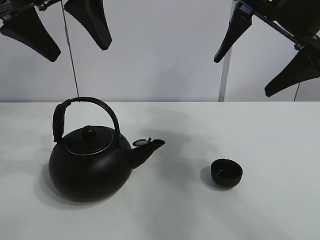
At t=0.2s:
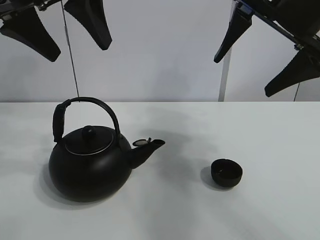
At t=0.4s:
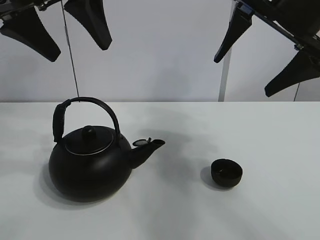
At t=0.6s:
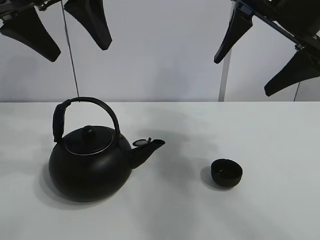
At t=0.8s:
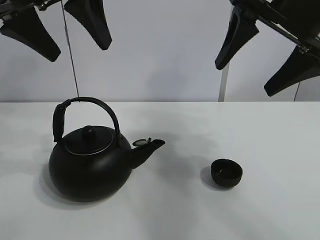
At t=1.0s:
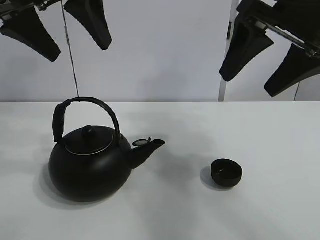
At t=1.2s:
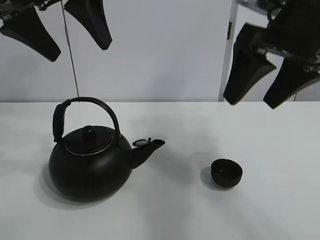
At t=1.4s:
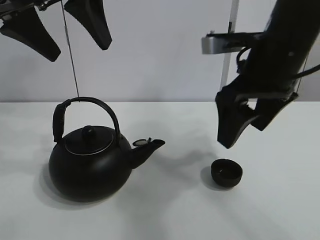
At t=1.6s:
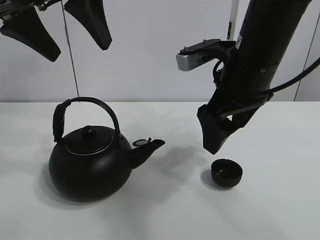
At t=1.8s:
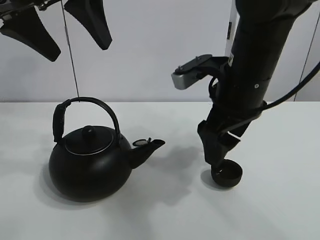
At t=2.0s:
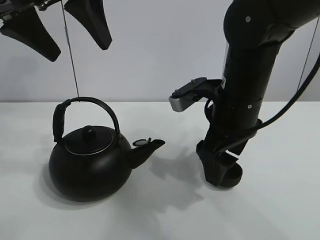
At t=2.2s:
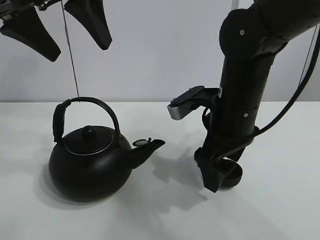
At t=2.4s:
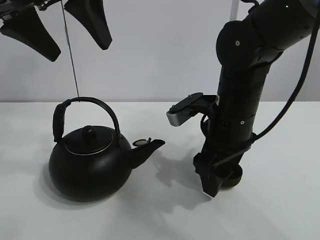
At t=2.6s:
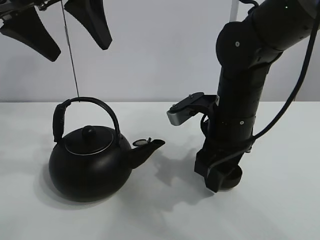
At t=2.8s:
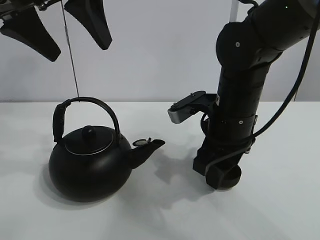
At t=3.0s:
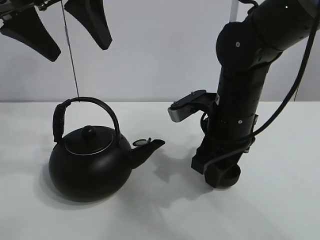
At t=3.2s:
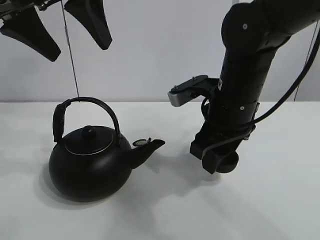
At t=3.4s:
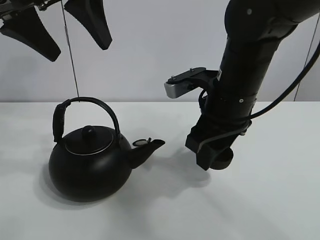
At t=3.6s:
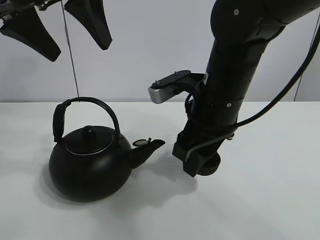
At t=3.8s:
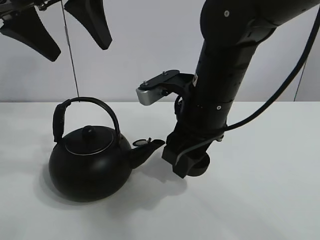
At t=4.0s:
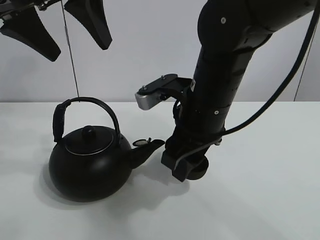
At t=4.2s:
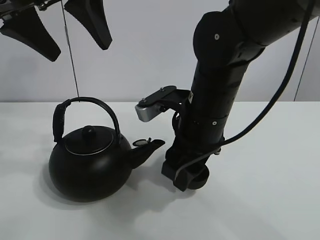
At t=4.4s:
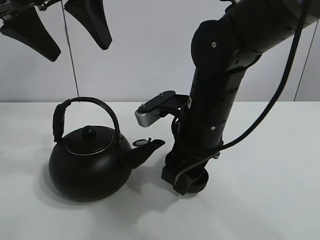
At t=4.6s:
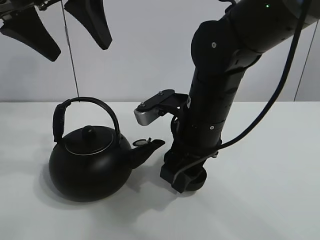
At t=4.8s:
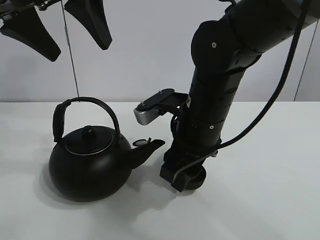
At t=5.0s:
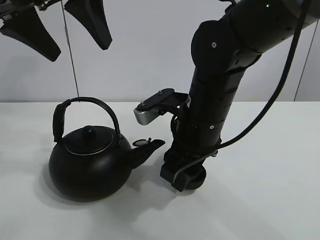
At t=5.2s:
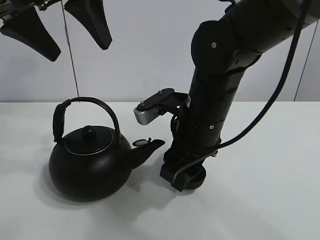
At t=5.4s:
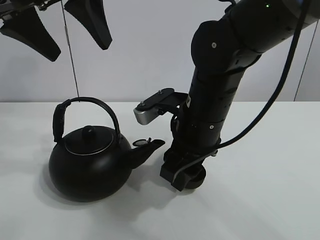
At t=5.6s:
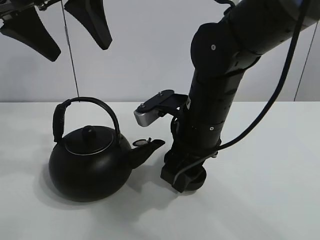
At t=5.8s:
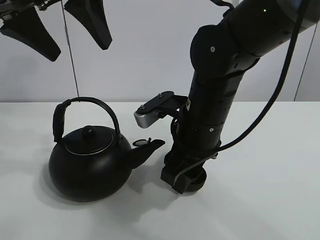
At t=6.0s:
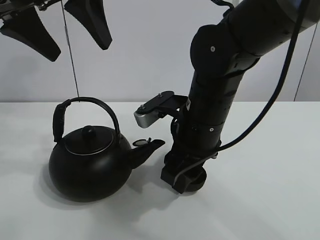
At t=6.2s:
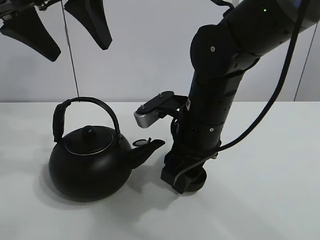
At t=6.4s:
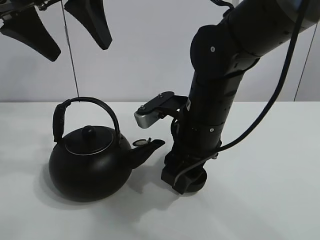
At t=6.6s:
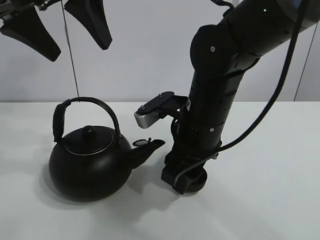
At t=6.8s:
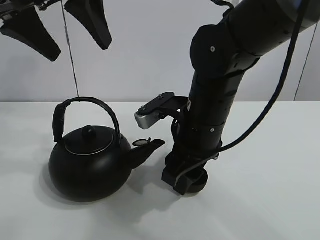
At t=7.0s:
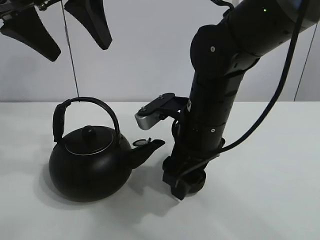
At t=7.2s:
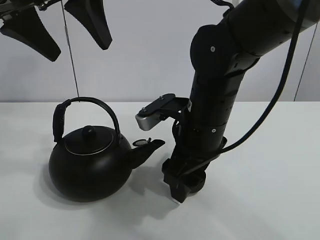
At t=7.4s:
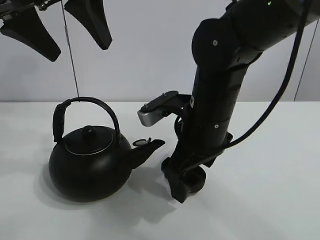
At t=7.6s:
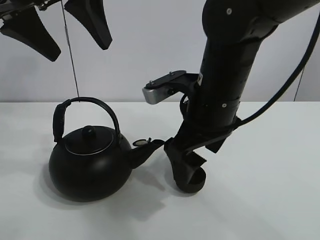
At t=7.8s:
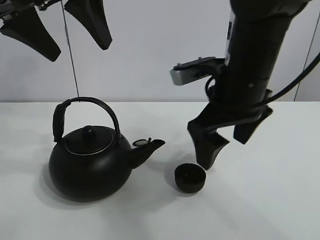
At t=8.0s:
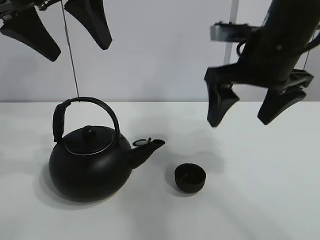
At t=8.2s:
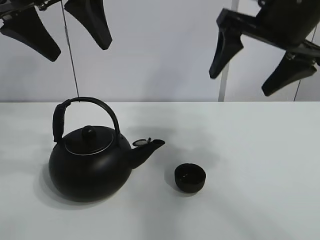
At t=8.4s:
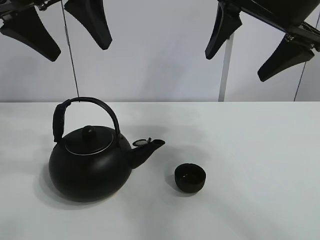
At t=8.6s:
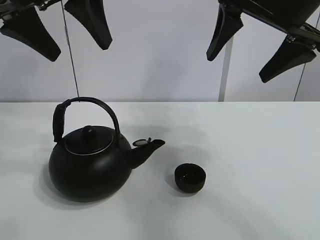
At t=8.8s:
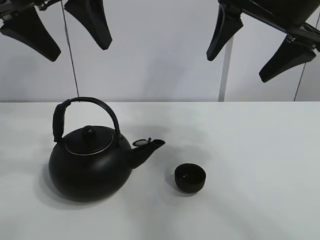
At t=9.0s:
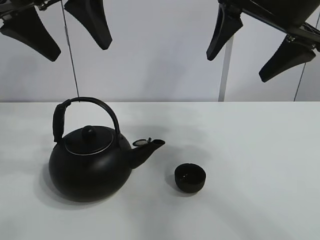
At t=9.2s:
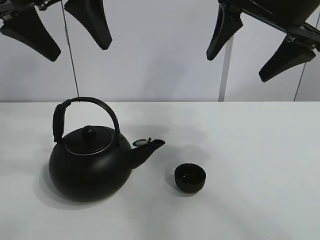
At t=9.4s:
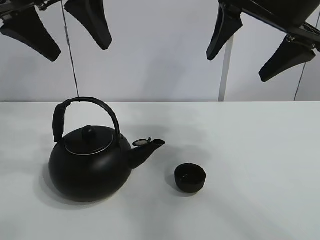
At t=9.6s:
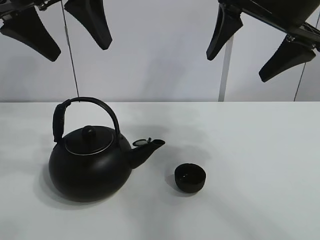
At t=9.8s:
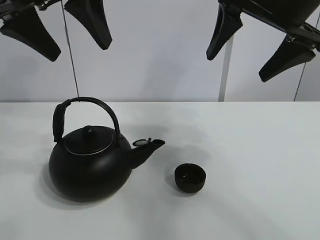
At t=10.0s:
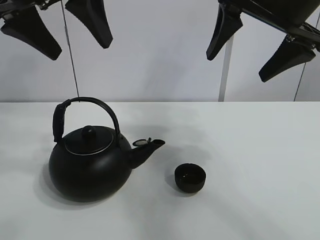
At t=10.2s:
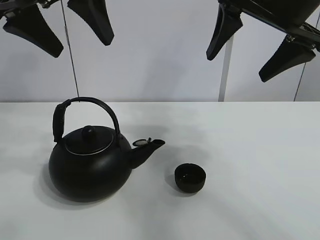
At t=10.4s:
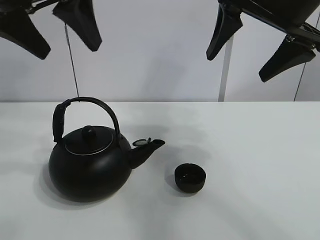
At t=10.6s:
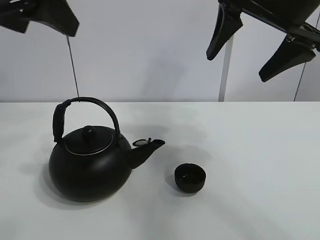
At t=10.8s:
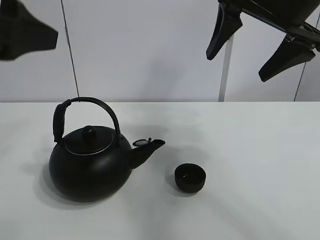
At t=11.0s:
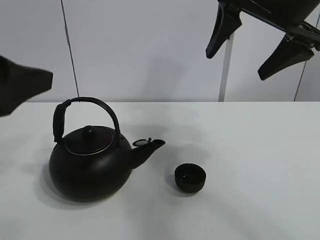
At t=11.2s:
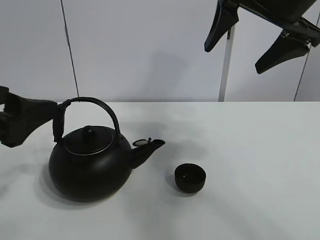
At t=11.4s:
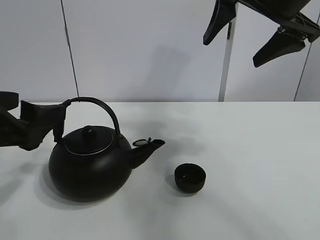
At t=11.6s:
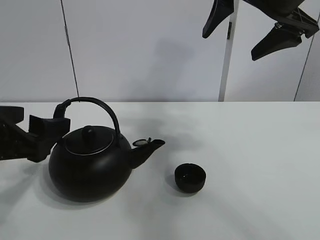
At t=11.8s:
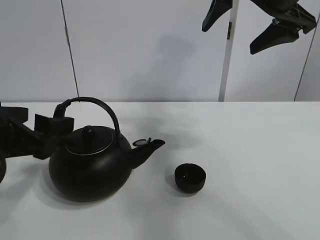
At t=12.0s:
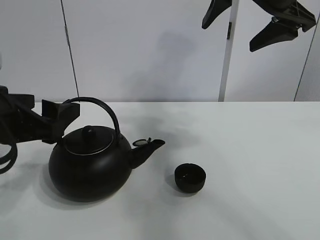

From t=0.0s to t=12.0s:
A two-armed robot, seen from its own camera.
Task of the whole recording: pour tea into the teacup.
Step, from t=0.0s to t=3.0s: Pick up the teacup with the right gripper.
Step, from t=3.2s to t=7.2s: Place the teacup in the center of view with the right gripper.
From t=1.6s to t=3.0s: The right gripper moves downward, approximately 10 cm, and closes.
From t=3.0s to t=4.4s: The right gripper changes place by some 5 cm.
From t=4.4s to t=6.0s: Neither gripper changes place.
From t=6.0s to t=7.6s: The right gripper opens its fingers.
From t=7.6s to t=9.0s: The right gripper goes approximately 15 cm upward and to the right.
From t=9.0s to t=10.4s: The grippers stay close to where they were, moving slightly.
From t=10.4s to t=12.0s: The left gripper heads downward, covering some 20 cm.

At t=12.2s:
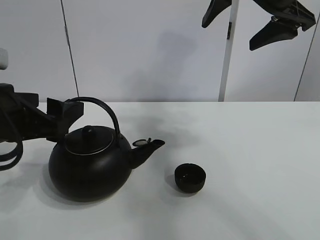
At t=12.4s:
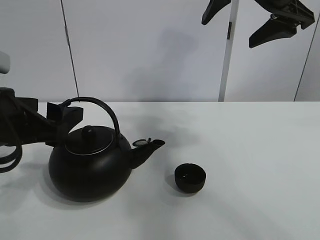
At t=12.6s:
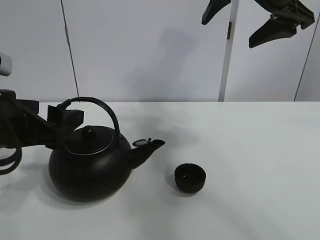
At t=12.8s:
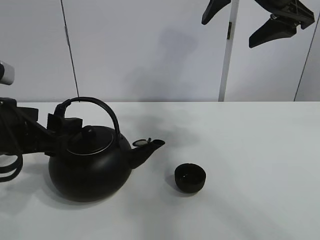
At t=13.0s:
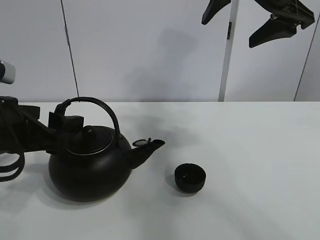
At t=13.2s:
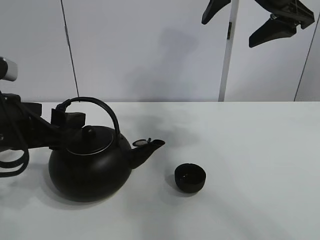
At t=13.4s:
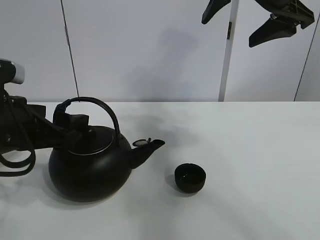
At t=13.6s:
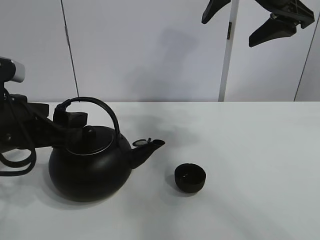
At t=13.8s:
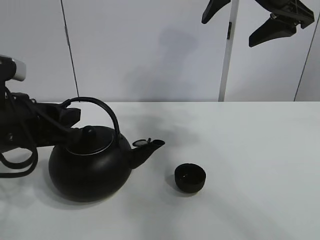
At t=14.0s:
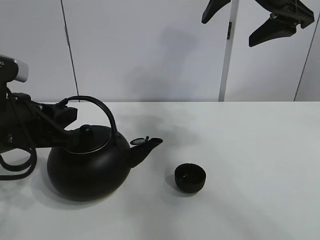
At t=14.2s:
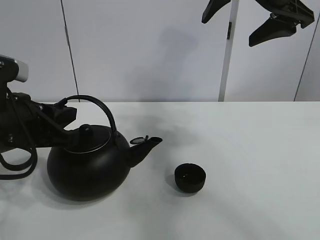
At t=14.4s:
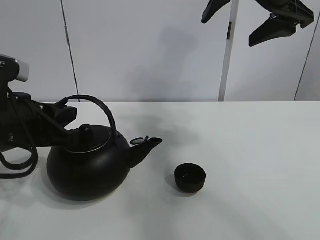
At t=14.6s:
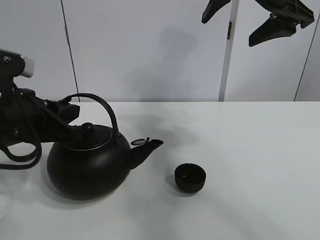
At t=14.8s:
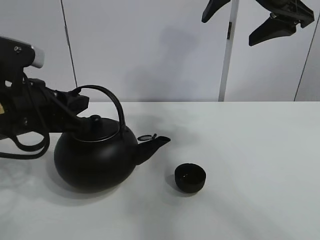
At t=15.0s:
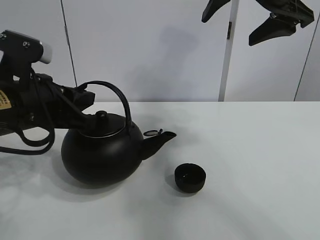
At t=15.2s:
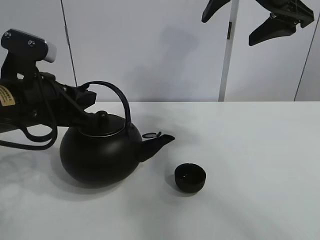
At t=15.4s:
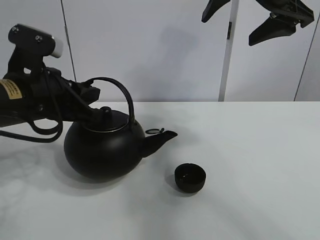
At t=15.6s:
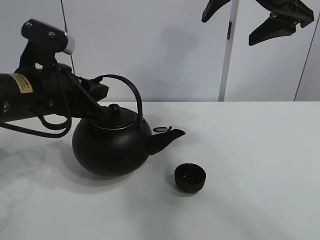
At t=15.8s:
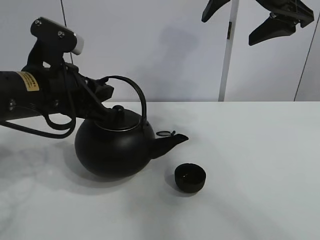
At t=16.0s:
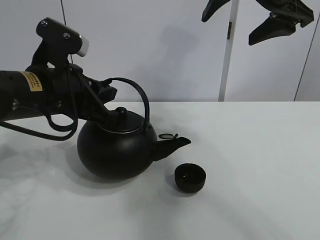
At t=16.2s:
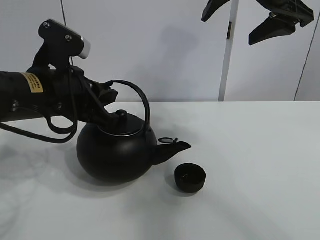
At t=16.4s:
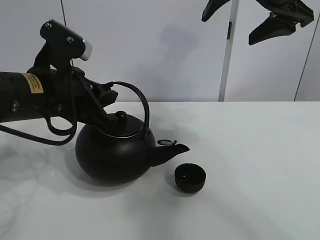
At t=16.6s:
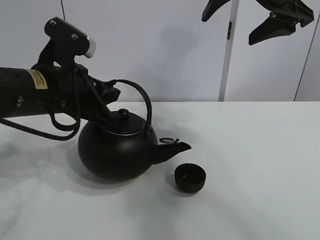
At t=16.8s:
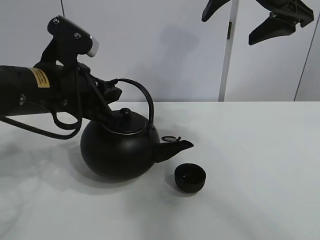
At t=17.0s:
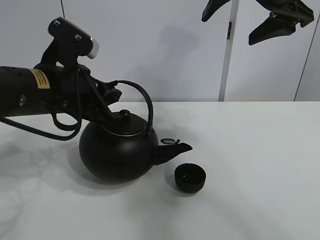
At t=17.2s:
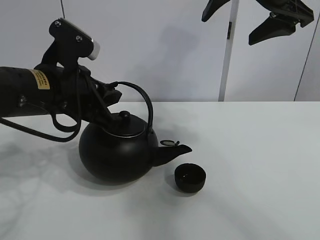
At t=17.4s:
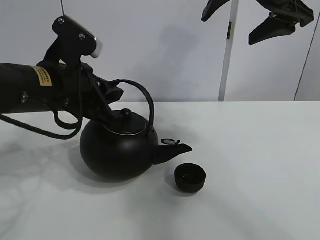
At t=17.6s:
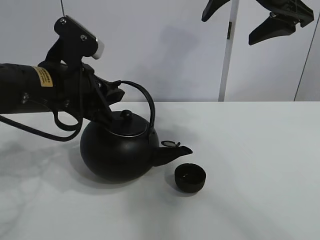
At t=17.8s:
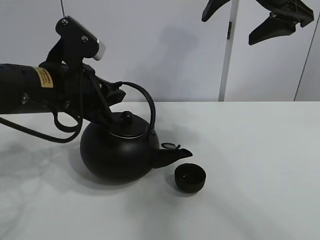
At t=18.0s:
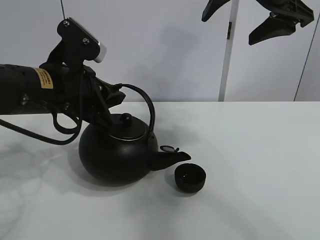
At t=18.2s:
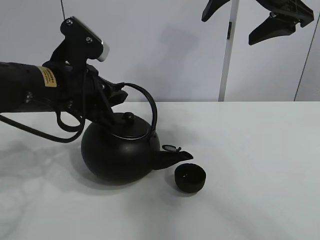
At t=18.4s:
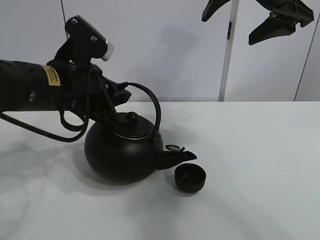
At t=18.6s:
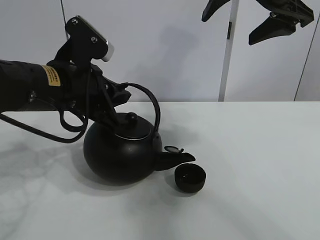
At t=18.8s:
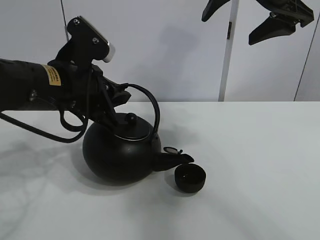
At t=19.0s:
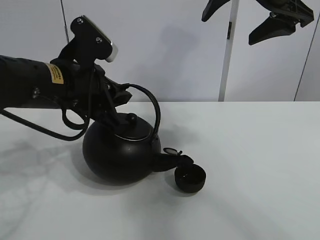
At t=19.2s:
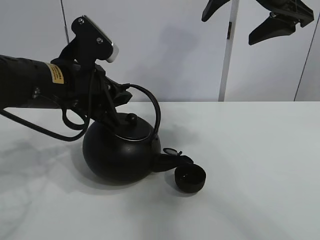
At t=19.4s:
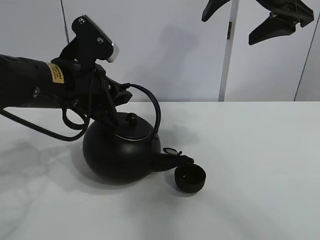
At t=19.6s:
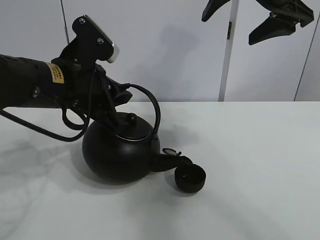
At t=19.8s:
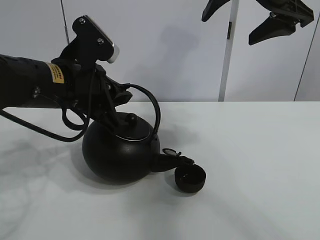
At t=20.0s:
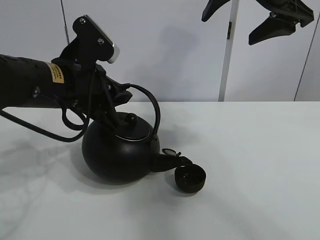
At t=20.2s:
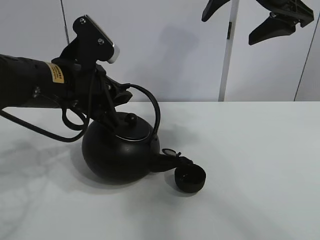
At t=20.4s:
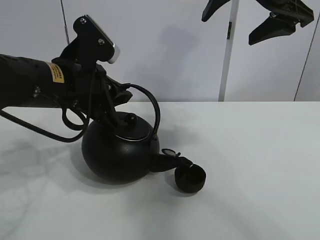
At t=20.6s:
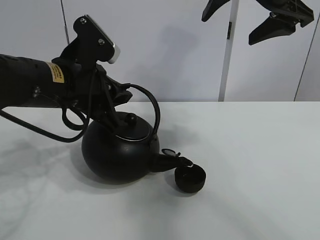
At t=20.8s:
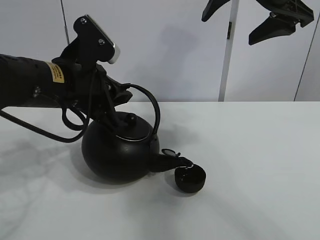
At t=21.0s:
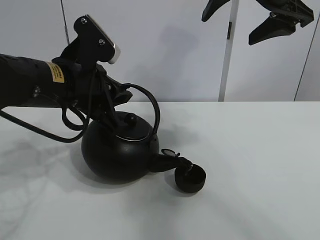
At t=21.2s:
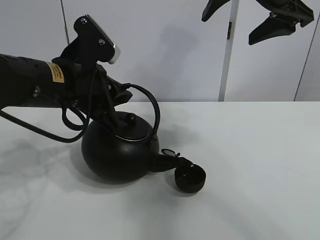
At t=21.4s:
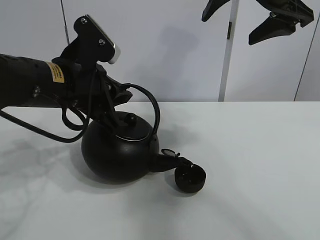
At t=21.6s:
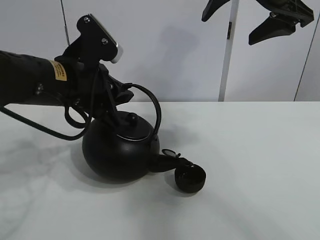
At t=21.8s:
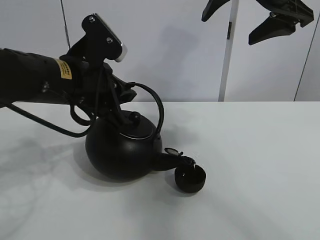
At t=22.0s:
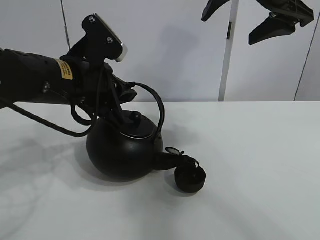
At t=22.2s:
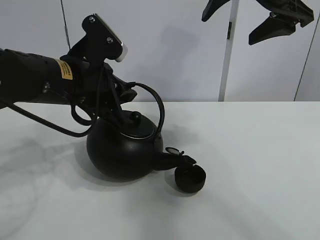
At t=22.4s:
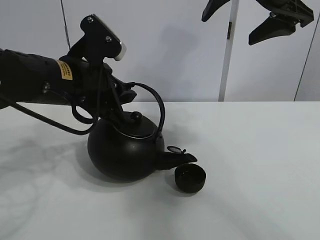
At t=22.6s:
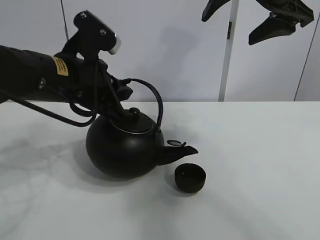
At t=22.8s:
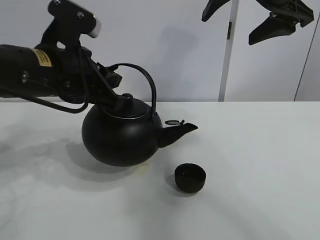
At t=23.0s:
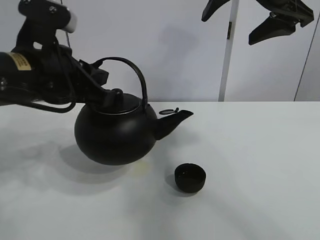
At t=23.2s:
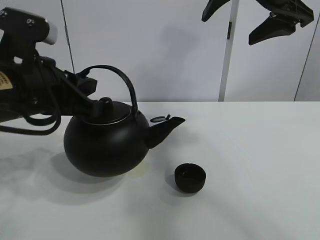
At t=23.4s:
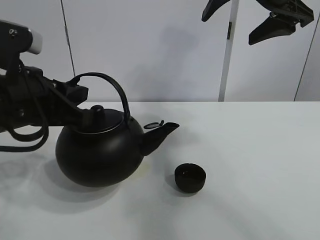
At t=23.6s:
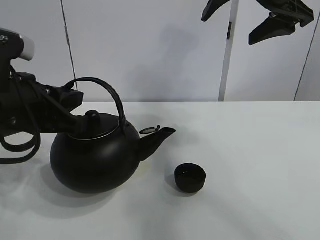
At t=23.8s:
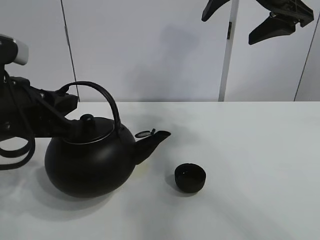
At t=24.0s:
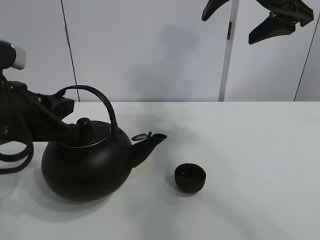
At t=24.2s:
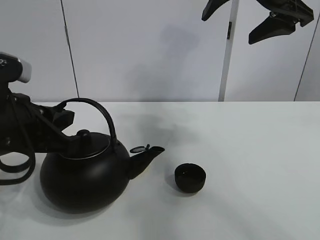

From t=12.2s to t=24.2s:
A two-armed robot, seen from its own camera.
Task of the whole recording: pour tea into the teacup.
Step, from t=14.2s to t=22.4s: Pour tea into the teacup with the left gripper.
From t=12.2s to t=13.8s: The left gripper closes its fingers.
From t=13.8s to t=15.2s: The left gripper closes up.
From t=15.2s to t=18.2s: The grippers stay close to where they were, moving slightly.
From t=18.2s to t=19.8s: The grippers move only a little.
From t=19.8s to t=21.2s: Both grippers stay put.
From t=21.2s to t=22.6s: The grippers stay close to where they were, moving slightly.
From t=22.6s to t=24.2s: The left gripper travels backward and to the left by approximately 10 cm.
